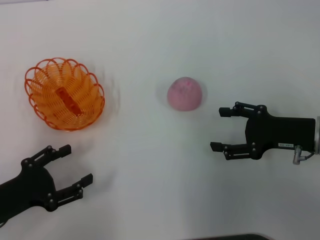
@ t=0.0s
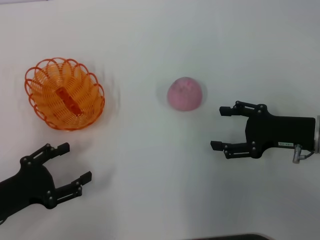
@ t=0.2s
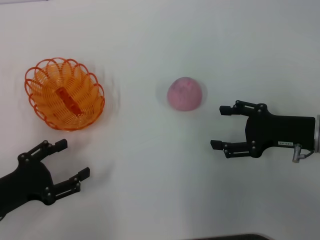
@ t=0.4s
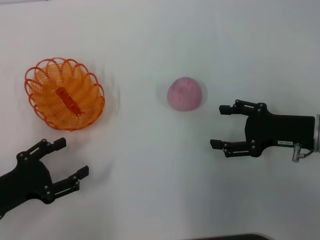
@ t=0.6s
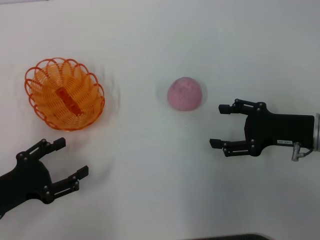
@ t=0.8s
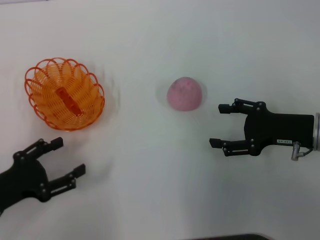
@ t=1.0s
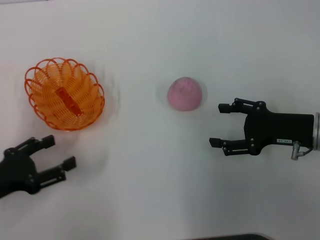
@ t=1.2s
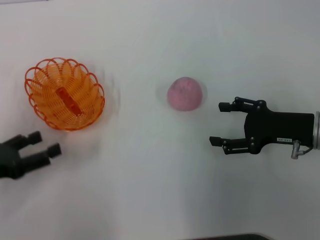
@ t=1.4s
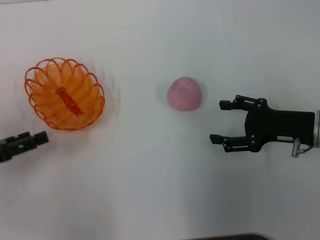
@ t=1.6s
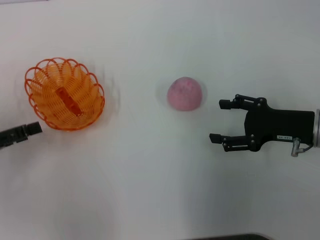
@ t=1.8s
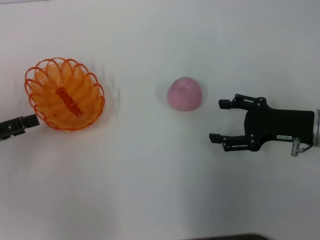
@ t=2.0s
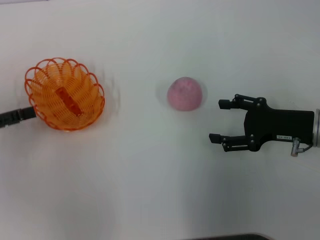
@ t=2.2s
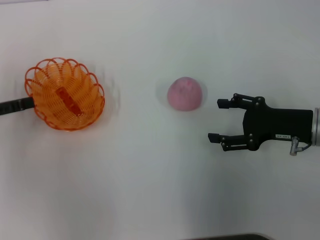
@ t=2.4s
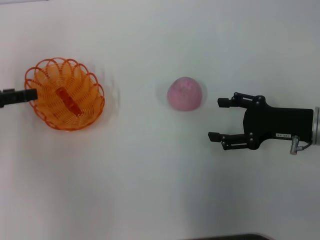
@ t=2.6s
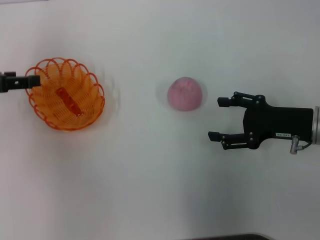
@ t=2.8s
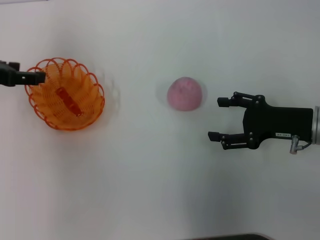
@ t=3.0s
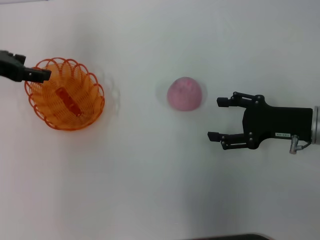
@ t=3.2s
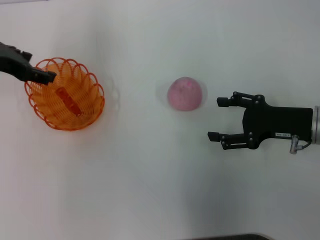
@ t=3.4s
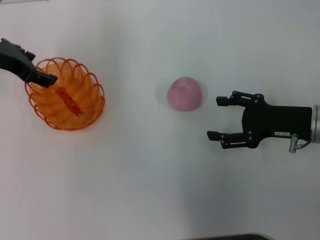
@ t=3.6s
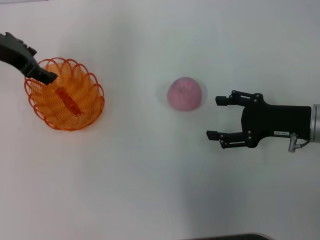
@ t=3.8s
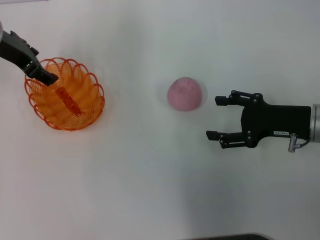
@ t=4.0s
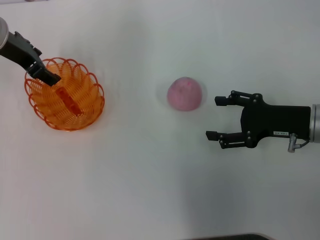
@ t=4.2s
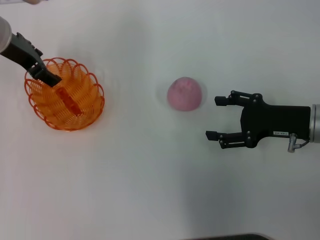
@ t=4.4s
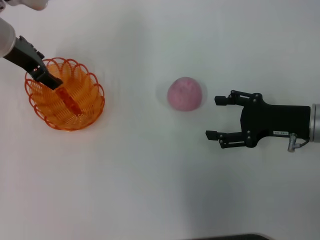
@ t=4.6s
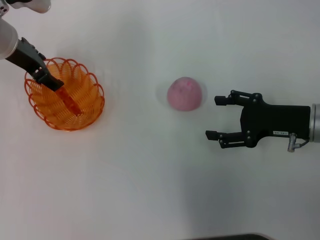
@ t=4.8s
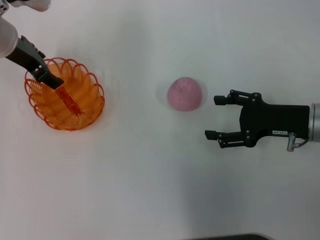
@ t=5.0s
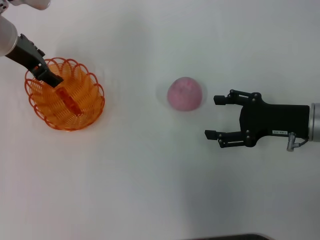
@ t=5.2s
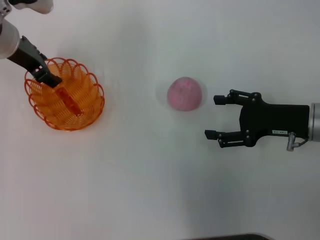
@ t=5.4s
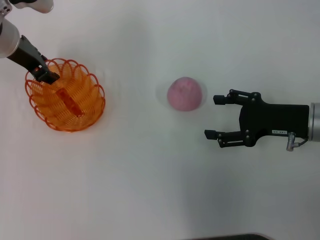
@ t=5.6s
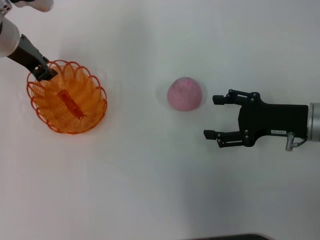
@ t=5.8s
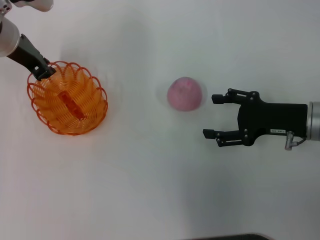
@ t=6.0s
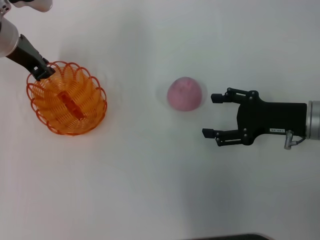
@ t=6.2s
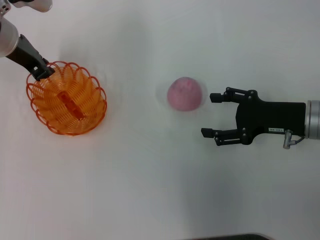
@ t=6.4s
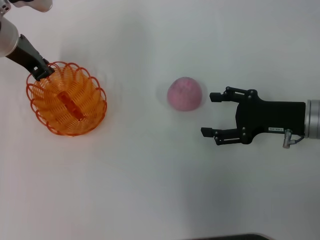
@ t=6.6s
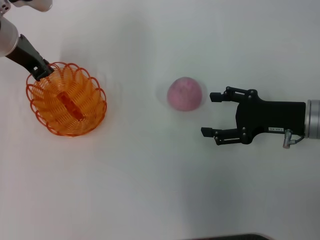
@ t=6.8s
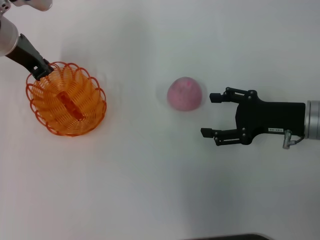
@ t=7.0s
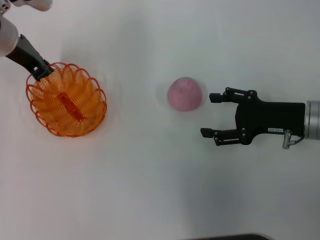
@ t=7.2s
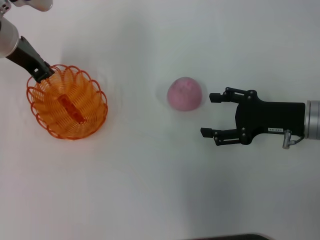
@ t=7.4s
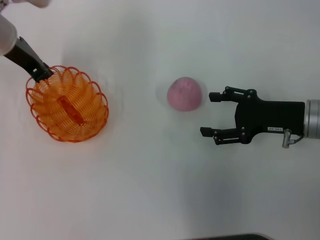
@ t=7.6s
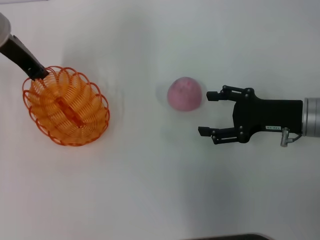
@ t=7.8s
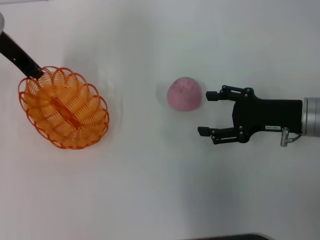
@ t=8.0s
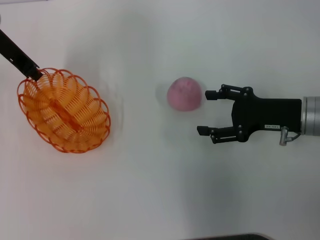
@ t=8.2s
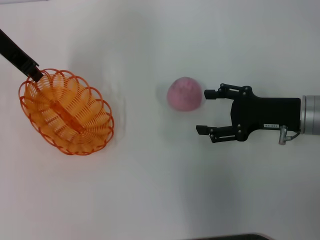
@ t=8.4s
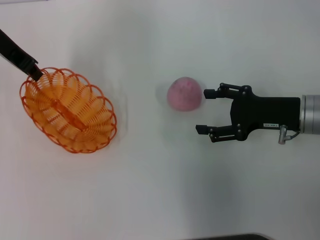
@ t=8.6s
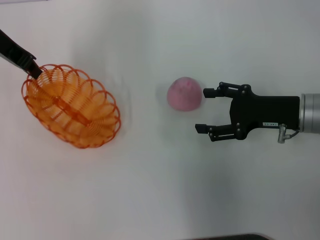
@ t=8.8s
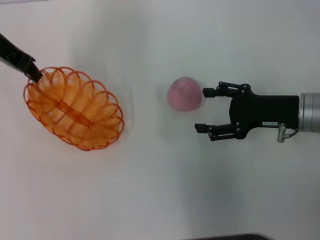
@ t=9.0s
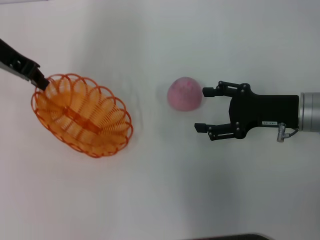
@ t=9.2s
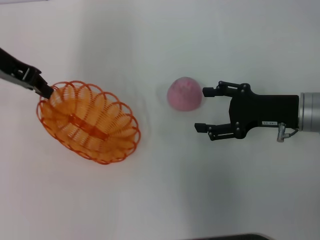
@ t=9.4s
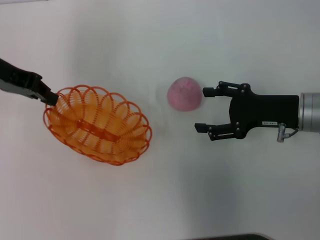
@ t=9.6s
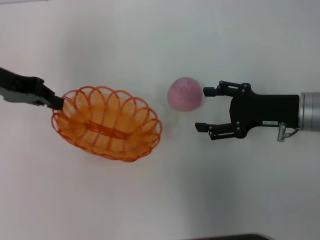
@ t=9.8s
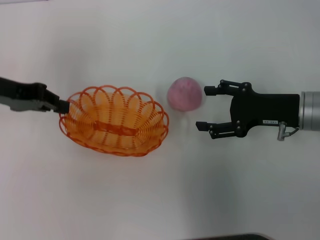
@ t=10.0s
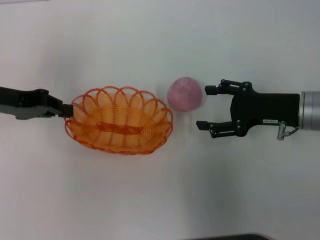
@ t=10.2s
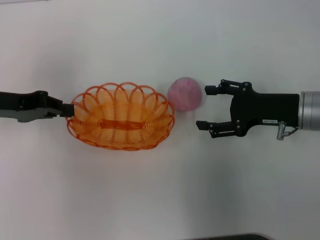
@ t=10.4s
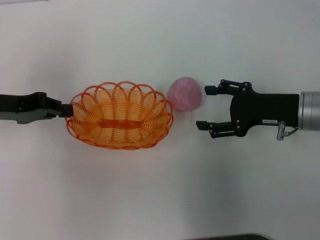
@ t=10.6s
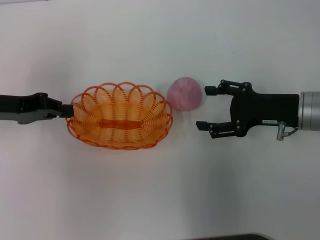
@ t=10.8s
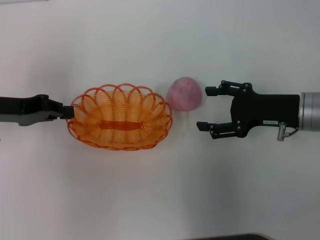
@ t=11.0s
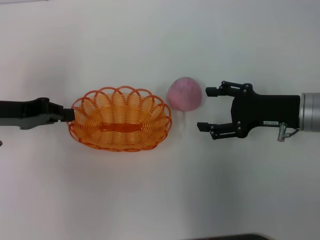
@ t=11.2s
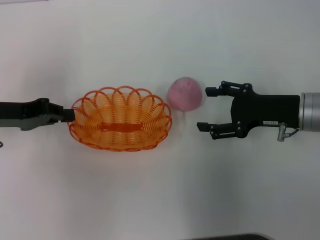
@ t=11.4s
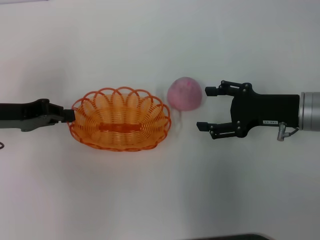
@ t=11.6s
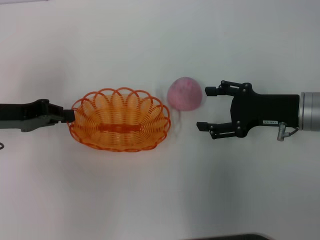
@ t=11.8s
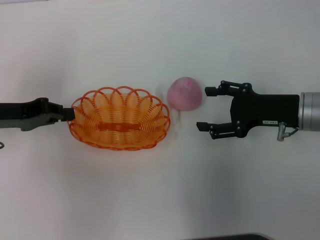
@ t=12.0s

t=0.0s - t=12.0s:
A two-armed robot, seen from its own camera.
Step, t=0.0s - t=7.8s: Pick up the basket with the left gripper.
t=0.0s - t=1.6s: The left gripper travels to the left by approximately 5 cm.
t=1.6s - t=3.0s: The left gripper moves forward and upward, roughly 15 cm.
t=3.0s - t=4.4s: The left gripper heads to the right and forward, covering roughly 10 cm.
t=4.4s - t=6.0s: The left gripper closes.
t=6.0s - t=7.6s: Both grippers stay about where they are.
t=7.6s - t=9.0s: The left gripper shifts some 5 cm upward.
t=9.0s - t=10.4s: The left gripper goes approximately 15 cm backward and downward.
t=10.4s - t=12.0s: The grippers make only small movements.

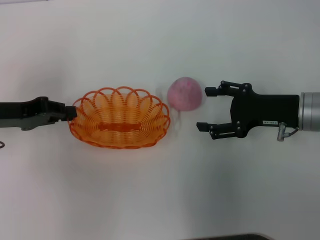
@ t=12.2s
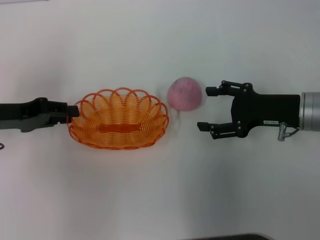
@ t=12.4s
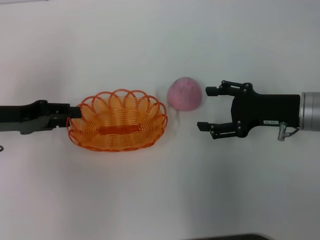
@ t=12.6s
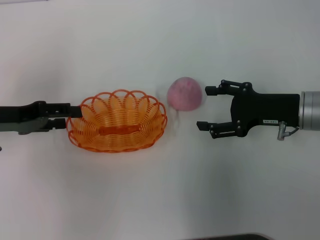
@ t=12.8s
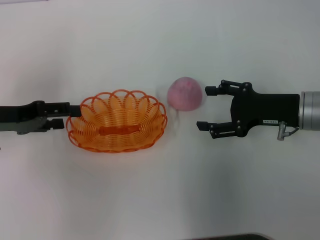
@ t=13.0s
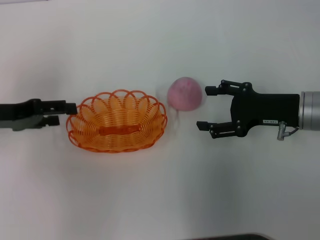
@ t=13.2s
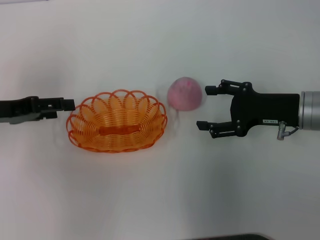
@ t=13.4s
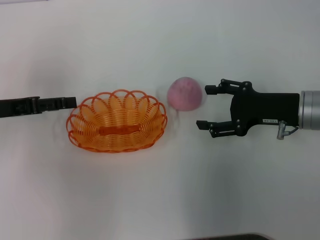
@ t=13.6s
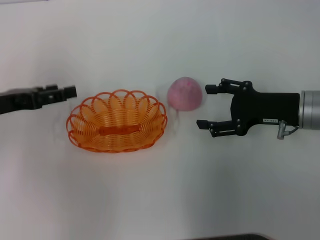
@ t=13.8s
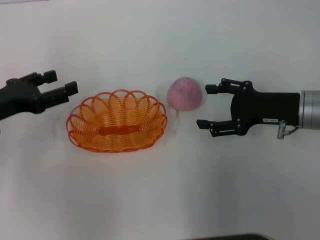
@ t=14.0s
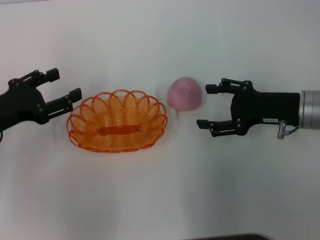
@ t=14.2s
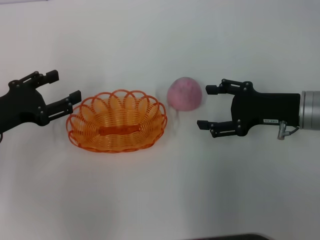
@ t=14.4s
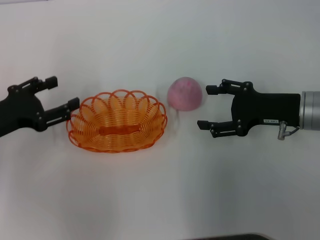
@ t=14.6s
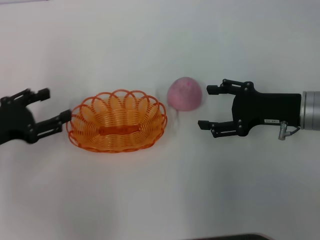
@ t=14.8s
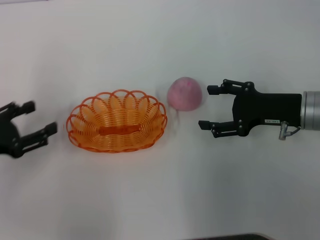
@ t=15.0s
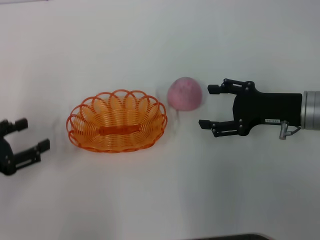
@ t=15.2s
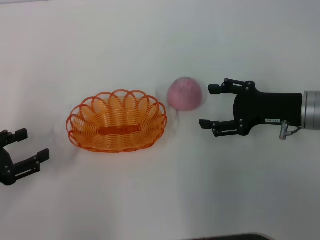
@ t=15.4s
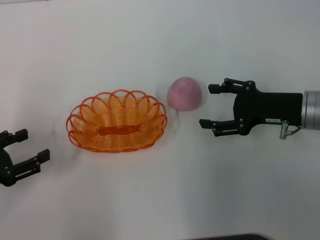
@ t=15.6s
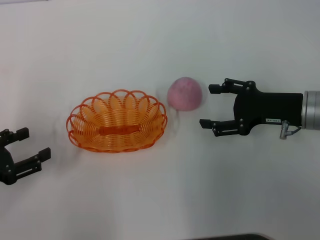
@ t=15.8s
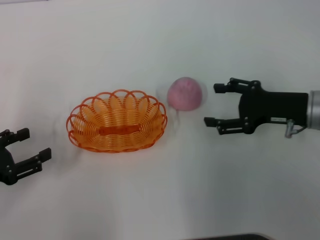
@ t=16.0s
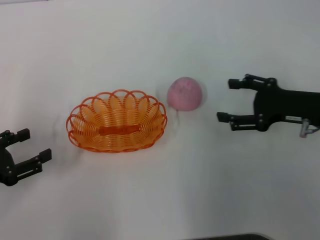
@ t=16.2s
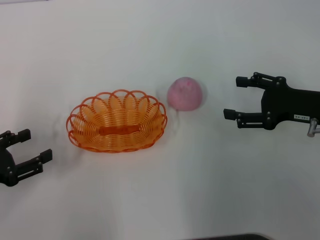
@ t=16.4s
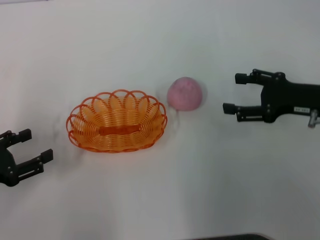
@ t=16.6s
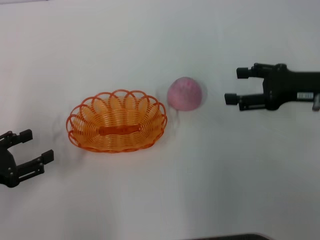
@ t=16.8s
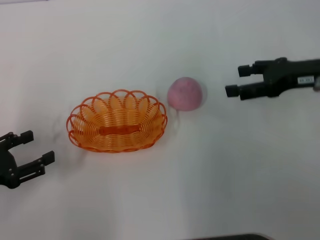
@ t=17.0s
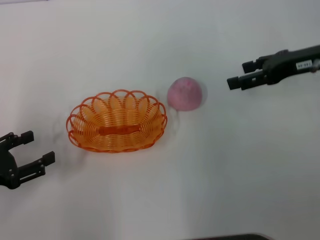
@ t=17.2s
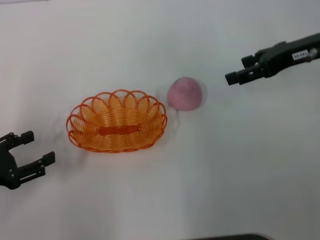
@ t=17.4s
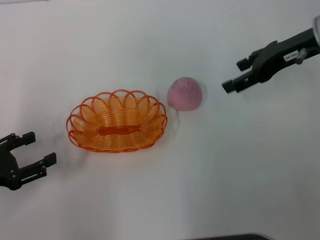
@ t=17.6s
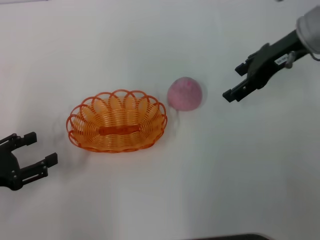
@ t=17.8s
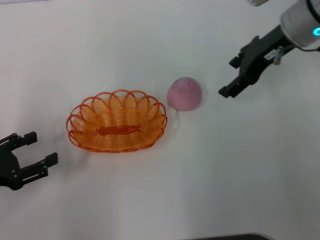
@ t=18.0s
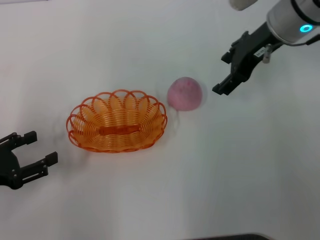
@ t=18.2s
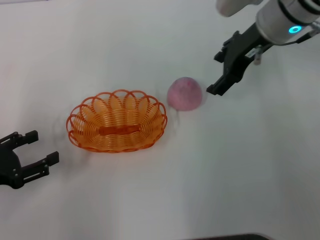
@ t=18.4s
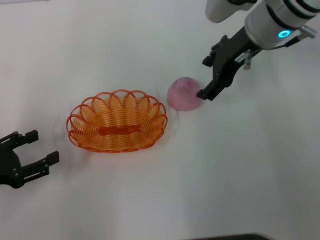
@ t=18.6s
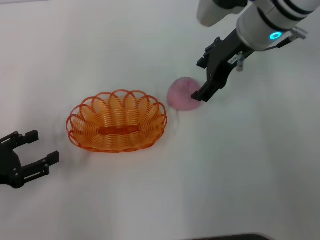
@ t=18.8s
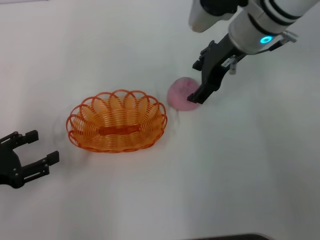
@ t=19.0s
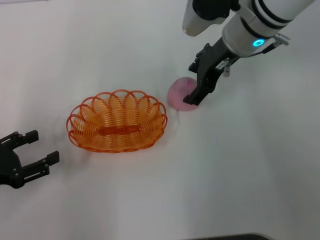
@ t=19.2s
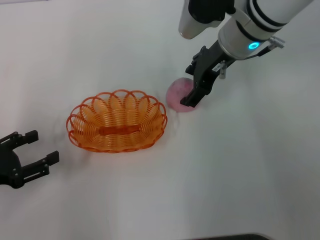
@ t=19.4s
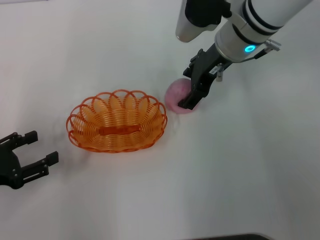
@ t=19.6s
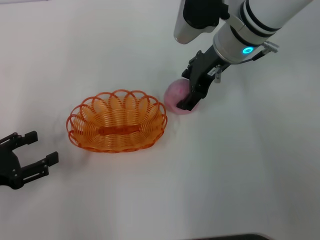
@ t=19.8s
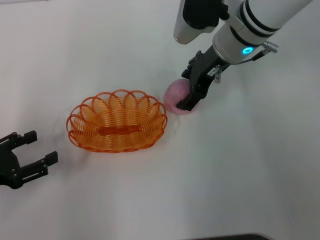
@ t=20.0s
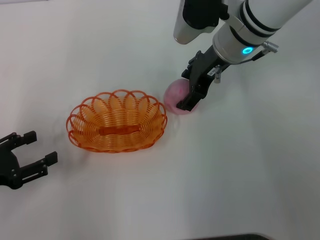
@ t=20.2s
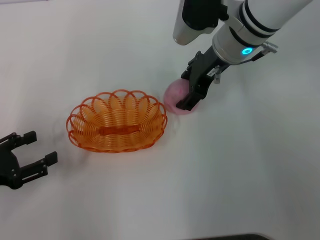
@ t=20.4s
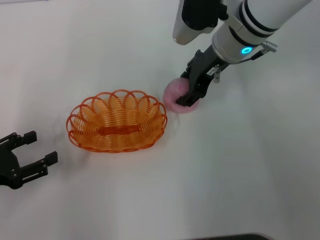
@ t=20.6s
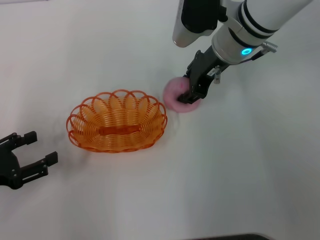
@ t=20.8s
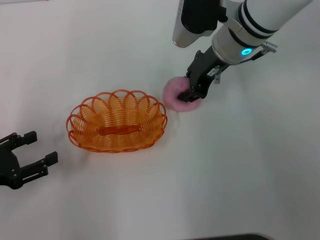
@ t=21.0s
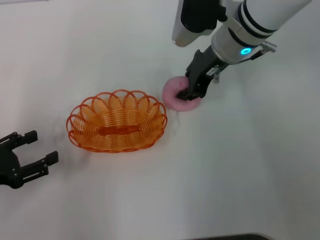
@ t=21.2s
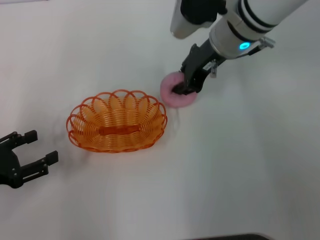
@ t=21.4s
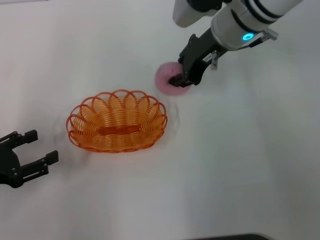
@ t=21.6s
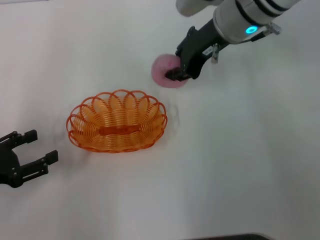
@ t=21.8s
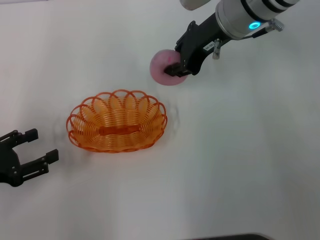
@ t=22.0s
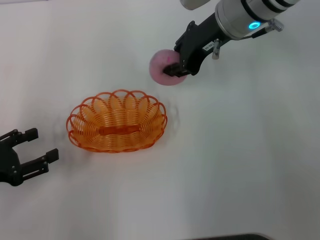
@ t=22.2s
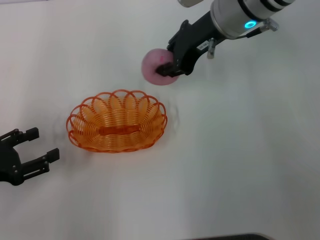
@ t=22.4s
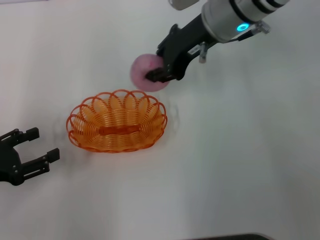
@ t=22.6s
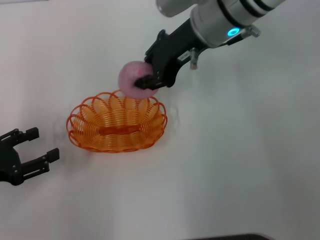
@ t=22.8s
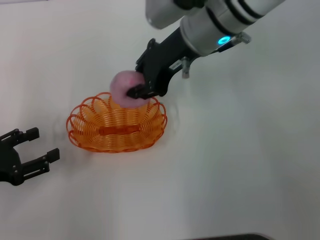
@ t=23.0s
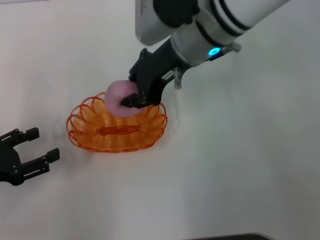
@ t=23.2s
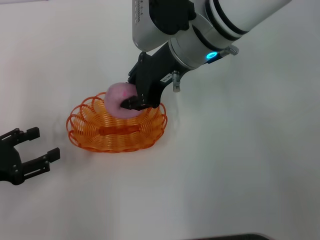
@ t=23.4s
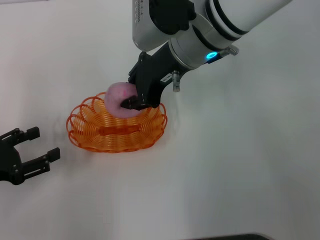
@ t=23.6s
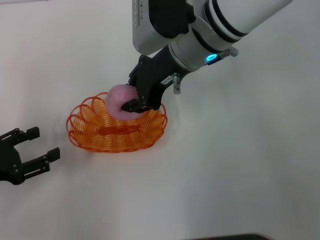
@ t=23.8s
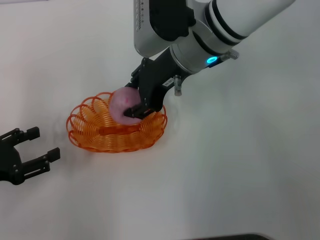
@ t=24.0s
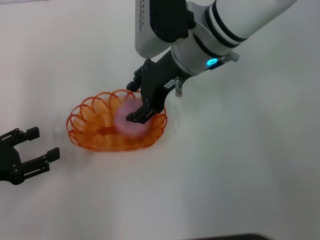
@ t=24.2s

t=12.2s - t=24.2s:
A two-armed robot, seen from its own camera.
Step, t=13.4s - t=22.2s: Pick up the peach with the right gripper.
t=12.2s - t=13.8s: The left gripper opens.
t=13.8s - t=15.2s: The left gripper heads backward, covering approximately 10 cm.
t=15.2s - t=16.6s: The grippers stay close to where they were, moving slightly.
t=16.6s - t=18.2s: The right gripper is displaced forward, to the left and upward by some 20 cm.
t=18.2s - t=19.8s: The right gripper heads to the left, covering about 5 cm.
t=19.8s - t=21.2s: The right gripper closes its fingers.
t=21.2s - t=22.6s: The right gripper goes roughly 5 cm upward.
t=22.6s - t=24.2s: The right gripper moves roughly 5 cm, and opens.
